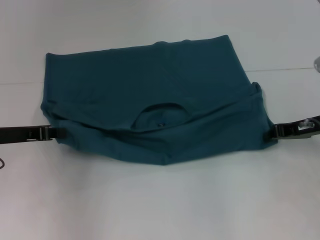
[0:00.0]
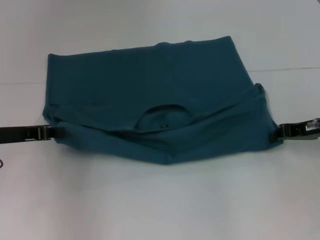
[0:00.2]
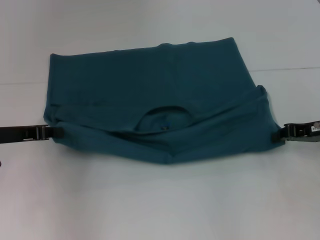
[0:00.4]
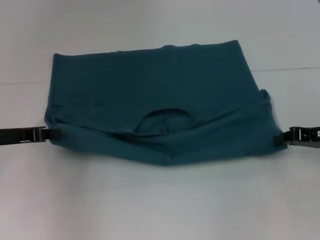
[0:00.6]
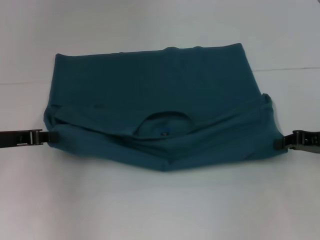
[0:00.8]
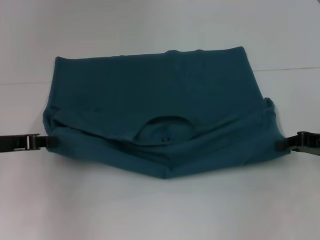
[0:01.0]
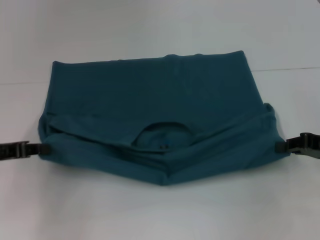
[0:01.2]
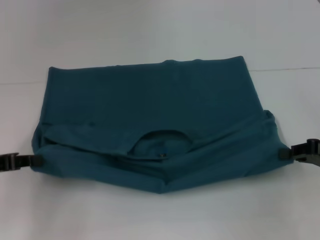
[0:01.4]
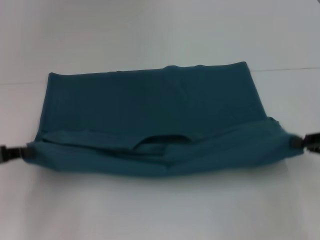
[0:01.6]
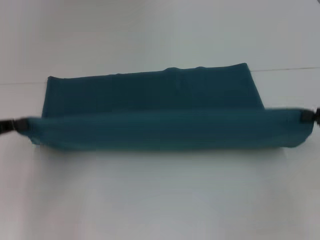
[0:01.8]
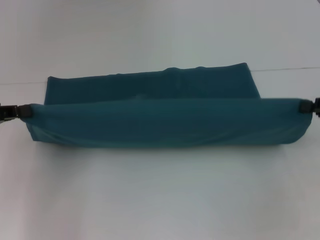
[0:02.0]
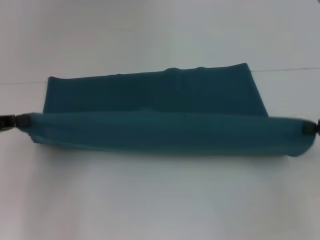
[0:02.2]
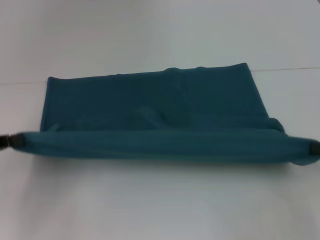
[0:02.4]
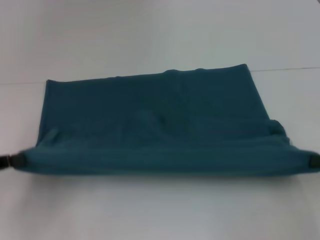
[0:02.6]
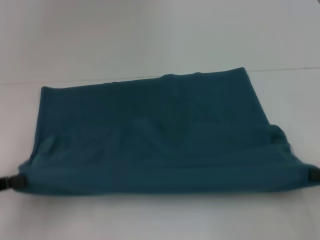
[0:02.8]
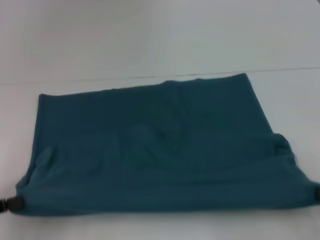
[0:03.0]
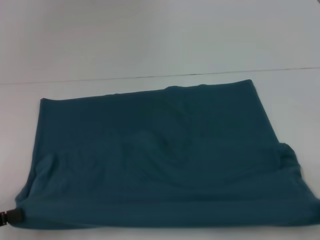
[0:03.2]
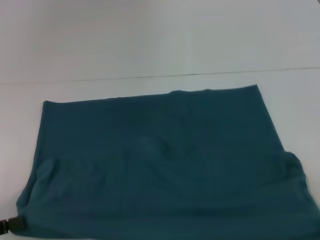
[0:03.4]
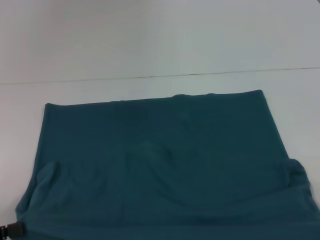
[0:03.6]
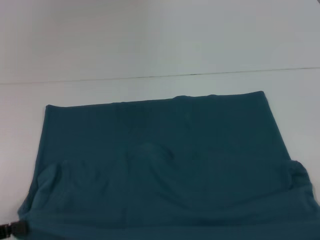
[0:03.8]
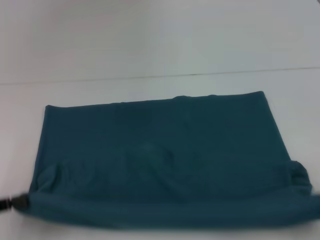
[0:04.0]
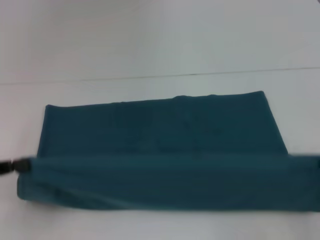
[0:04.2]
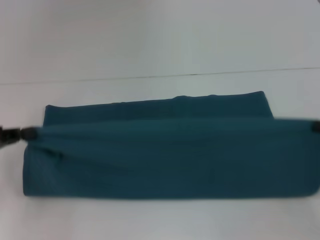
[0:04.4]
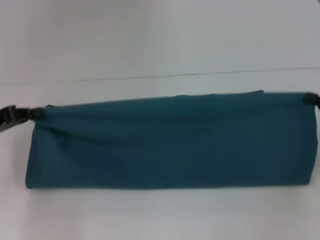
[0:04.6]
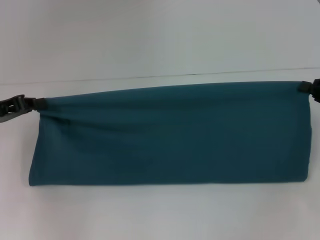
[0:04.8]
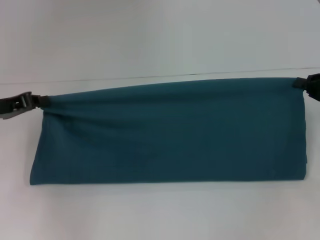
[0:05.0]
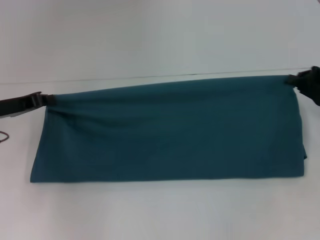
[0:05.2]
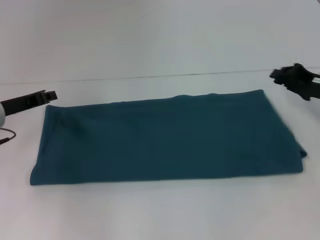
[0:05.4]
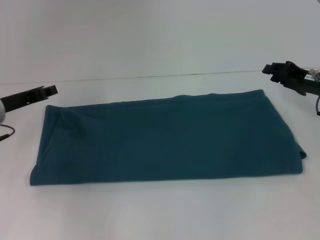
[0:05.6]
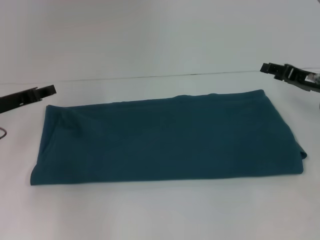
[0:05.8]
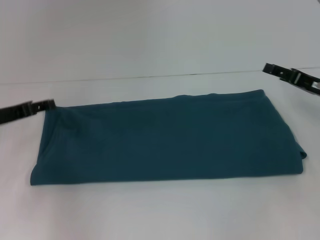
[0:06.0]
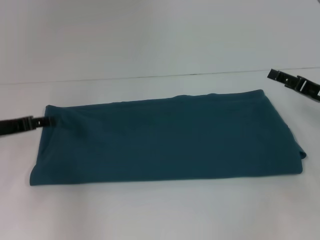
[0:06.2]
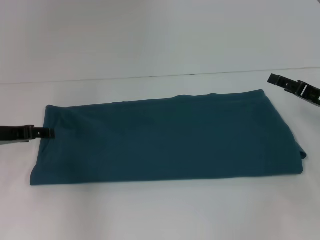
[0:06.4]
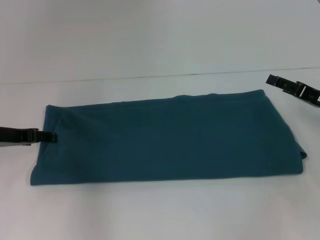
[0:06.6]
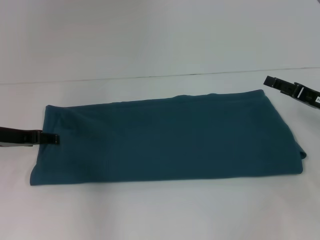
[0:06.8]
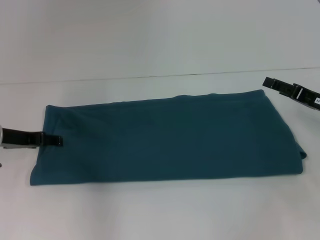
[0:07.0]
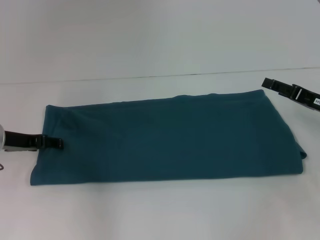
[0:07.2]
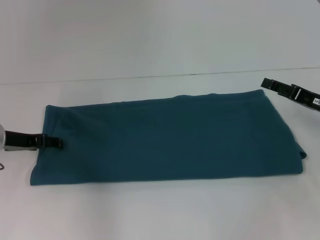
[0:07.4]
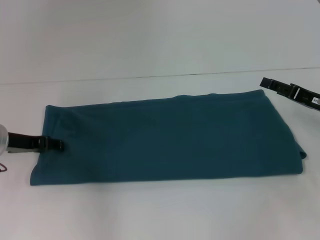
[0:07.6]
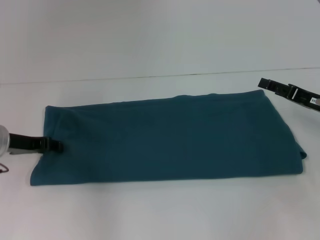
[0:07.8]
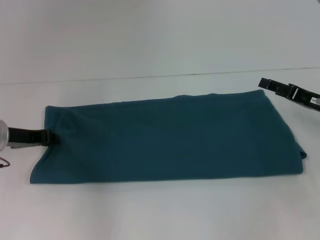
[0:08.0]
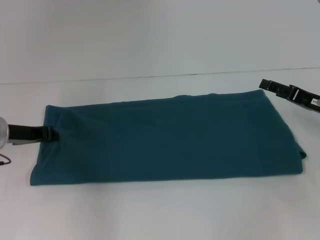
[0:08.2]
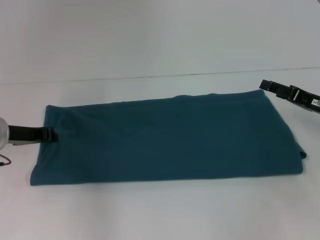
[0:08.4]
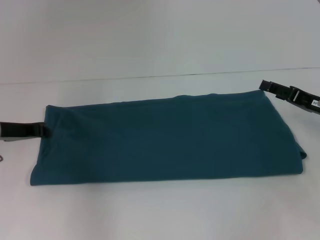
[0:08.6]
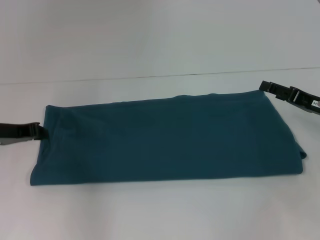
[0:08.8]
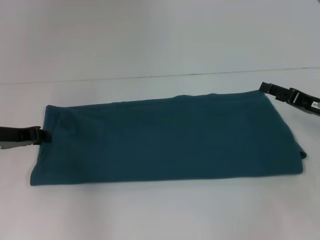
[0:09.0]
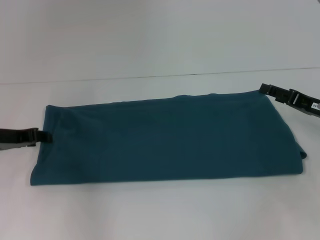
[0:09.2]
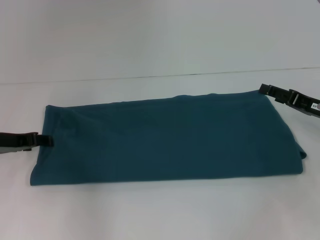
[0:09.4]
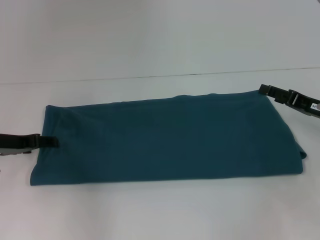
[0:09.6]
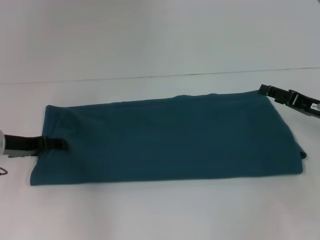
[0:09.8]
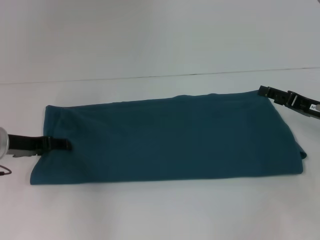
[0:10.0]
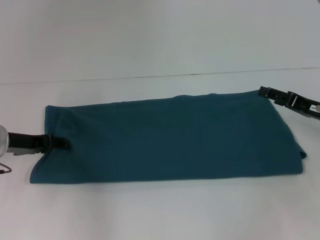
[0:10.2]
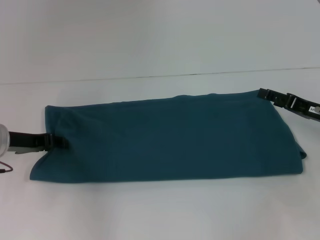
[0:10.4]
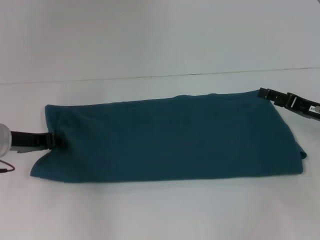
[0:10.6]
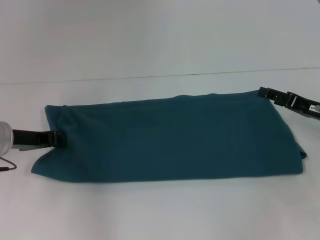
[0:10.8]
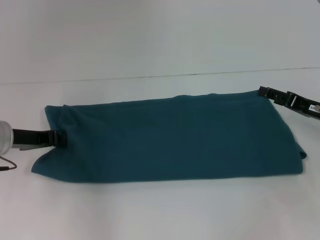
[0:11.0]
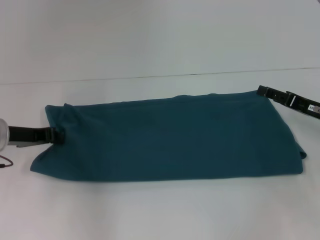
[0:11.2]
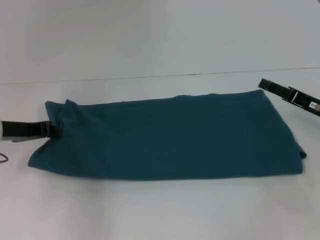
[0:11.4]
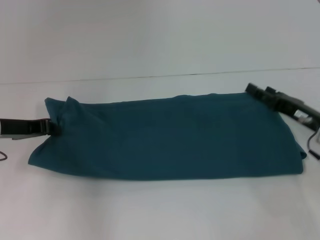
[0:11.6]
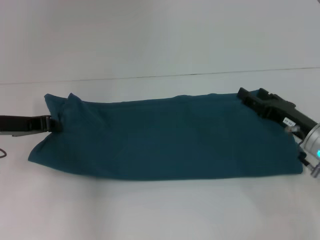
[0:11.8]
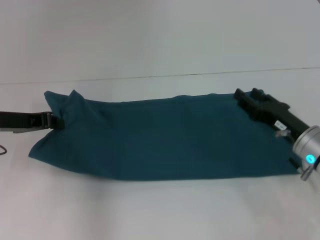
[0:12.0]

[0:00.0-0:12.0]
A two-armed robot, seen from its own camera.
Step, 0:00.0 to 0:03.4: Pull the clothes with your left hand.
Step, 0:00.0 to 0:03.4: Pull the clothes with your right hand.
Step, 0:03.6 to 0:05.8: Fold the clothes to the left.
Step, 0:03.6 to 0:05.8: Fold the clothes to the right.
0:00.0 to 0:01.6: The right gripper is displaced backward and to the right by approximately 10 cm, while the left gripper goes roughly 10 cm backward and to the left.
0:01.6 to 0:03.0: The grippers both shift backward by about 5 cm.
0:03.0 to 0:04.4: The left gripper heads forward, covering about 10 cm.
0:04.4 to 0:06.0: The right gripper moves forward and to the left, approximately 15 cm, and opens; the left gripper goes approximately 5 cm forward, and opens up.
0:07.6 to 0:09.0: The left gripper closes its fingers.
0:09.0 to 0:10.4: The left gripper opens up.
0:10.4 to 0:12.0: The right gripper travels to the left by about 5 cm, while the left gripper closes its fingers.

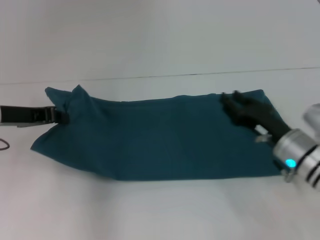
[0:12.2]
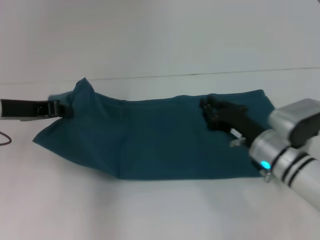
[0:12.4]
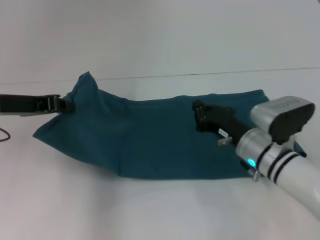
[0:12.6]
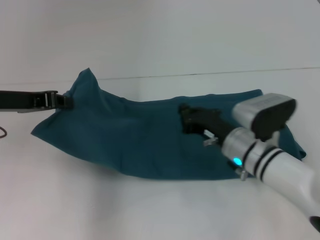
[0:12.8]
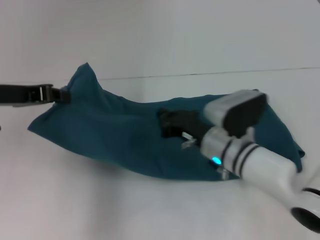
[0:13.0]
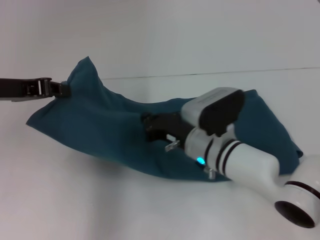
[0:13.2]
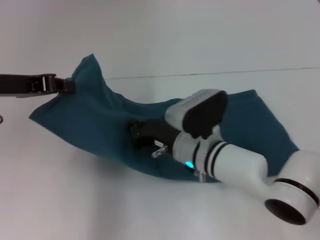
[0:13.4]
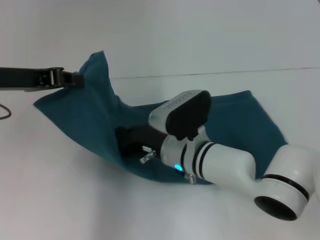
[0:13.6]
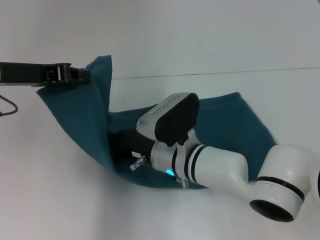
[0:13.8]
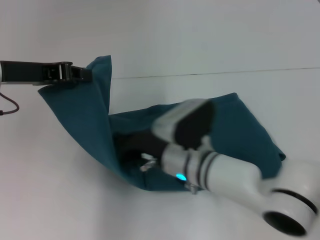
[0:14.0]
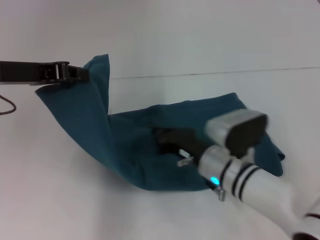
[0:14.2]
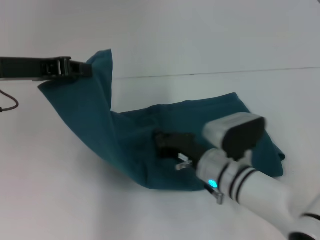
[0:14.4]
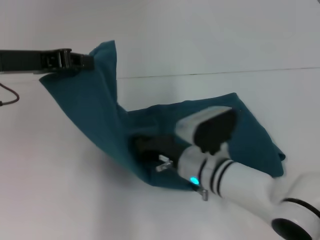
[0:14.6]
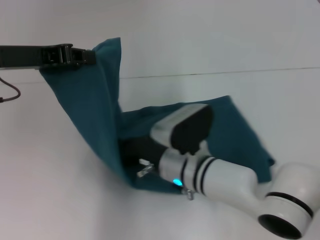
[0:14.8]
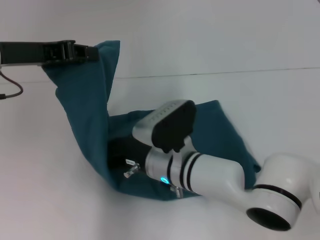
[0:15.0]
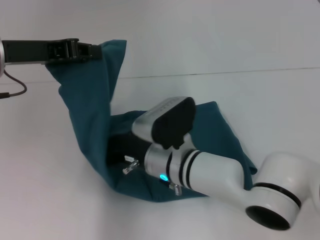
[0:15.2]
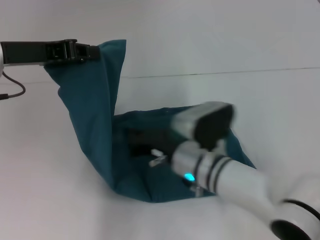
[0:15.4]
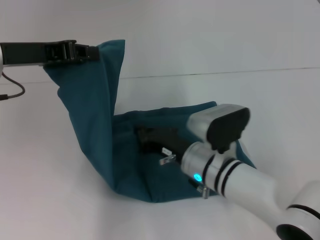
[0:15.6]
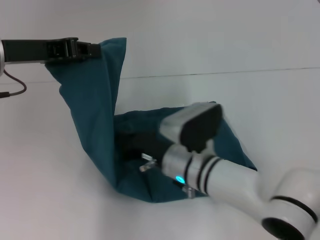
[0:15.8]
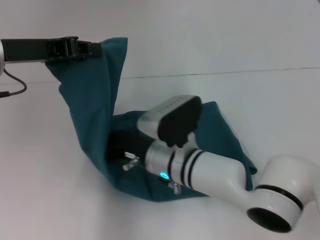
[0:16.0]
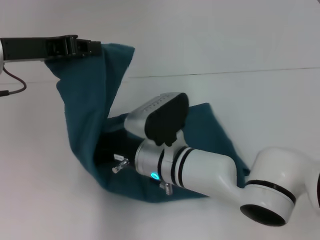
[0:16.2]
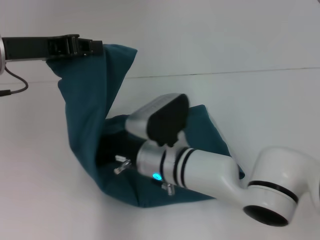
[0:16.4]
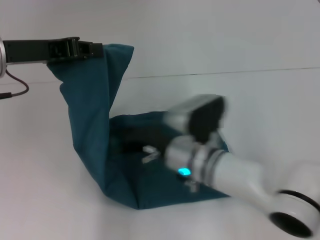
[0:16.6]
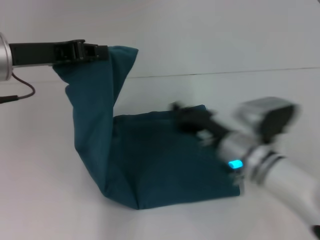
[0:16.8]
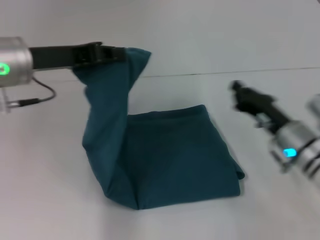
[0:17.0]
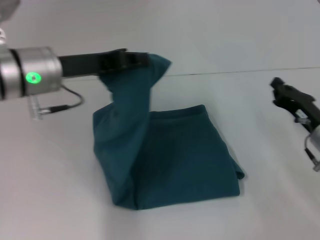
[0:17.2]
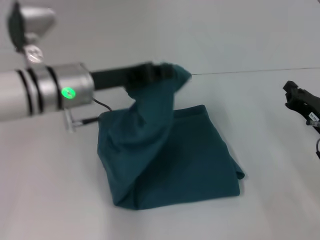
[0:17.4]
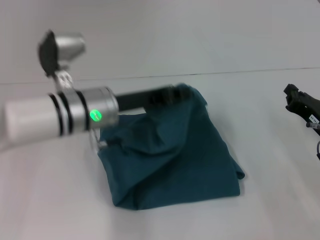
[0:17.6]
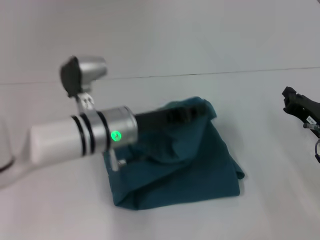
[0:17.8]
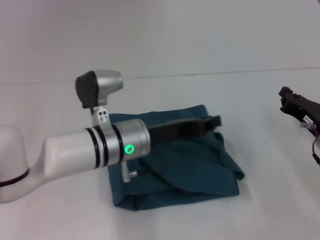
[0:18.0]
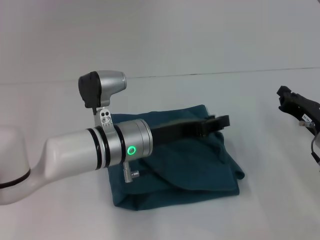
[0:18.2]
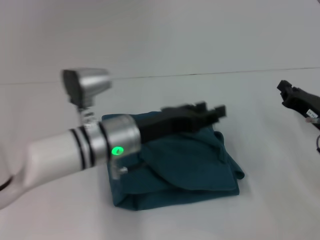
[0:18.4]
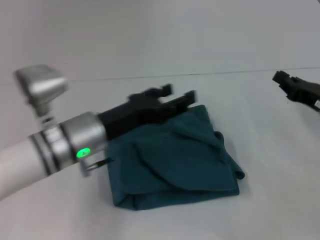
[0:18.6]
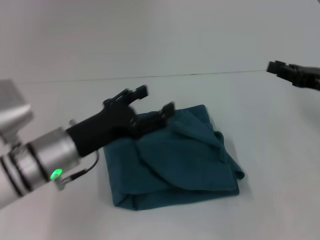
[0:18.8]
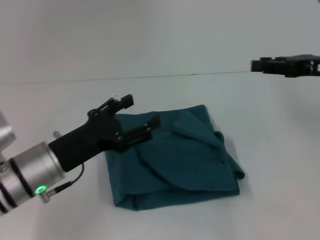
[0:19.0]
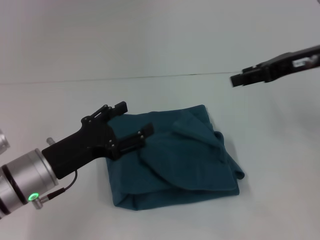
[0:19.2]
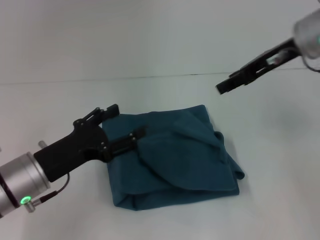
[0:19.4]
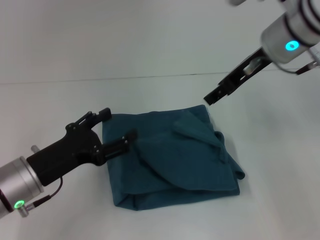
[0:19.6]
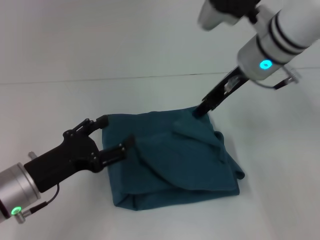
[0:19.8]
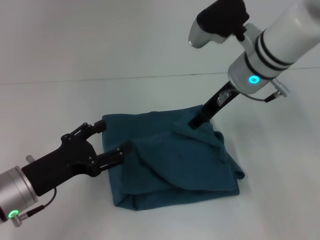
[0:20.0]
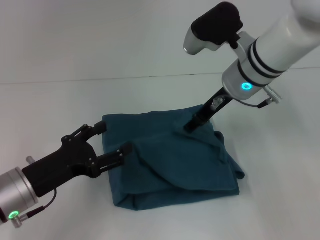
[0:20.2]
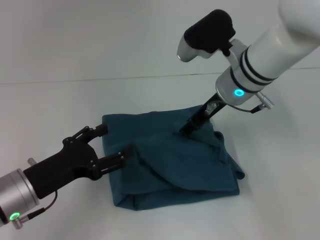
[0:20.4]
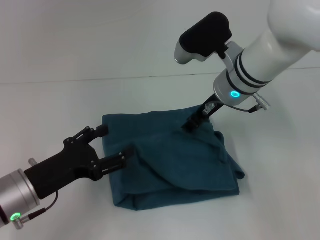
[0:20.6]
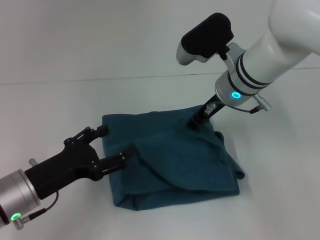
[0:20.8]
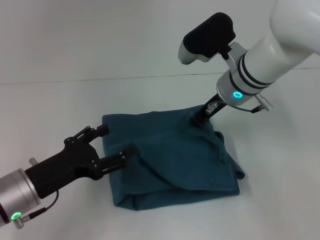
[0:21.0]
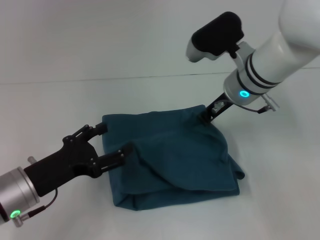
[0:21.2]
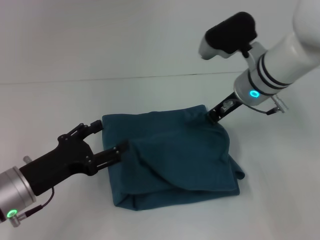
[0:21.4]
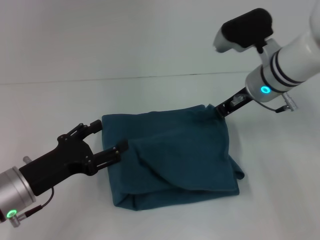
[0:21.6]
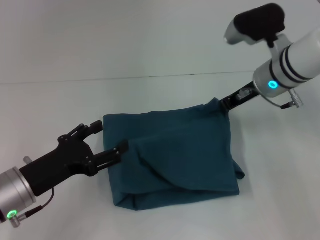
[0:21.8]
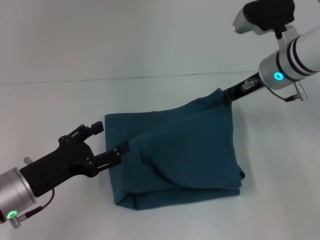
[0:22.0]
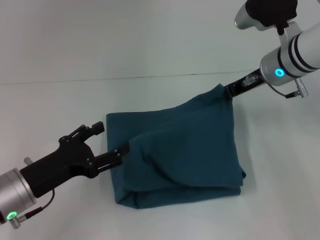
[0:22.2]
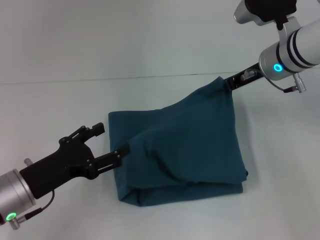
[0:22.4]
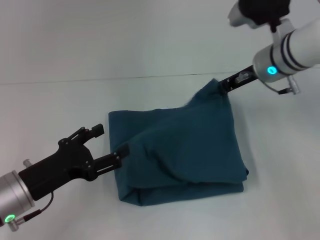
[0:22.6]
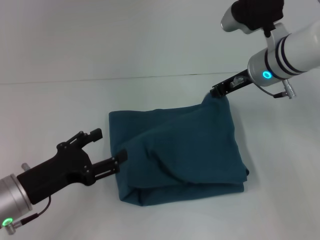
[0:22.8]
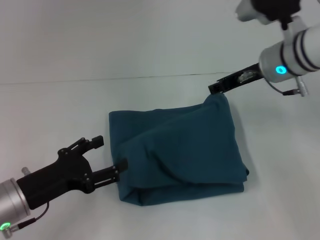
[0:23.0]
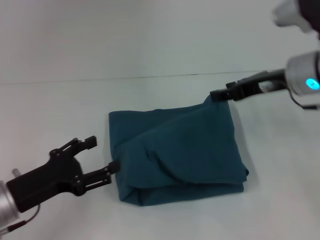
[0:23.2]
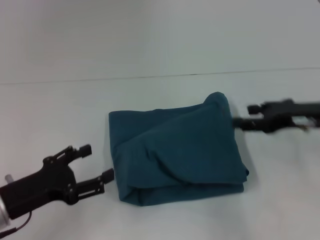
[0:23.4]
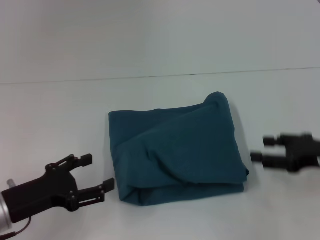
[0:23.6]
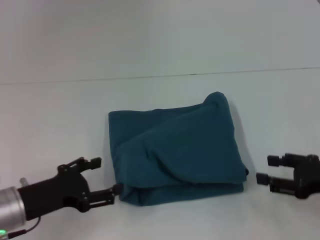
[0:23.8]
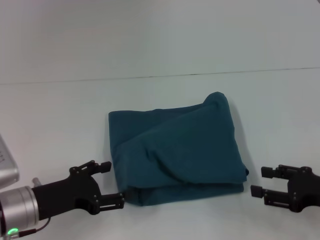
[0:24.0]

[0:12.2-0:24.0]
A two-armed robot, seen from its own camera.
Step, 0:12.2 to 0:16.6: Press the middle of the clothes with your right hand.
Step, 0:16.8 to 0:18.8: Fold the clothes to the left.
0:12.2 to 0:13.6: The right gripper travels to the left by about 20 cm, and closes its fingers. The left gripper travels upward by about 5 cm.
0:13.6 to 0:15.2: The right gripper reaches about 5 cm to the right, then returns.
0:15.2 to 0:16.6: The right gripper moves left and right over roughly 5 cm, changing direction 2 times.
0:16.6 to 0:18.2: The left gripper goes roughly 20 cm to the right and downward; the right gripper goes some 25 cm to the right.
0:18.2 to 0:19.6: The left gripper heads to the left and backward, covering roughly 15 cm, and opens up. The right gripper heads upward, to the left and forward, covering about 25 cm, and opens.
0:19.6 to 0:21.0: The right gripper travels downward and to the left by approximately 10 cm.
0:21.0 to 0:22.6: The right gripper moves to the right, approximately 5 cm, and closes its fingers.
0:22.6 to 0:24.0: The right gripper is displaced backward, to the right and downward by about 25 cm, and opens its fingers.
